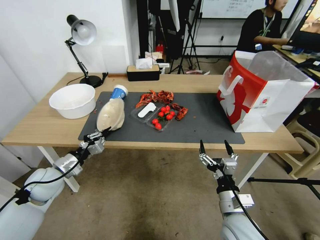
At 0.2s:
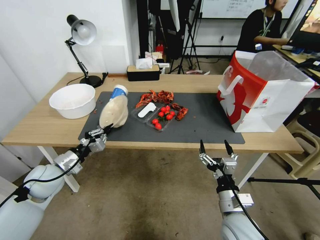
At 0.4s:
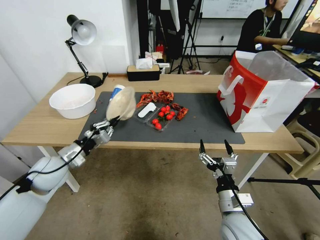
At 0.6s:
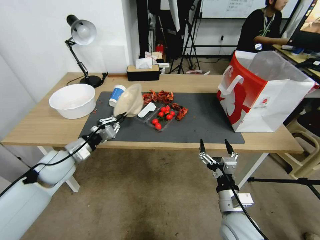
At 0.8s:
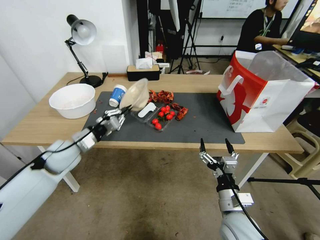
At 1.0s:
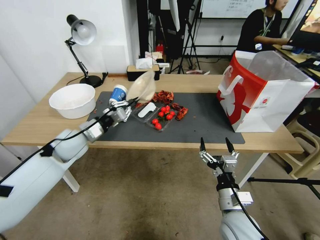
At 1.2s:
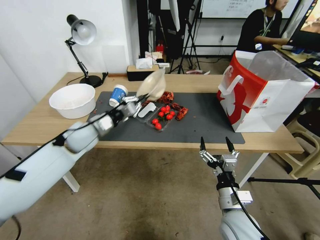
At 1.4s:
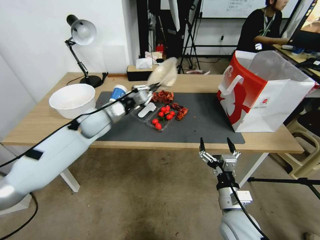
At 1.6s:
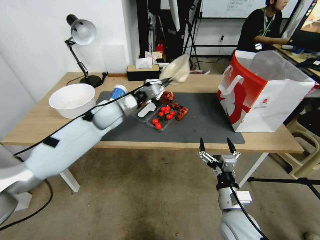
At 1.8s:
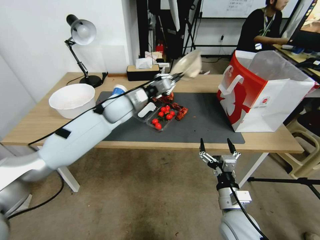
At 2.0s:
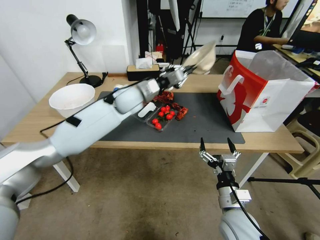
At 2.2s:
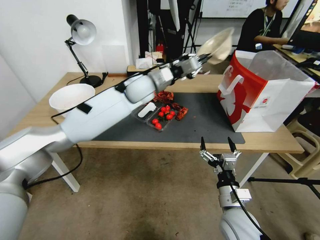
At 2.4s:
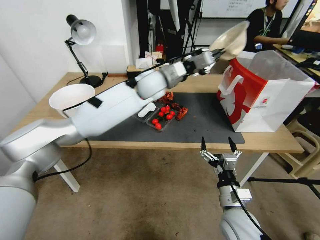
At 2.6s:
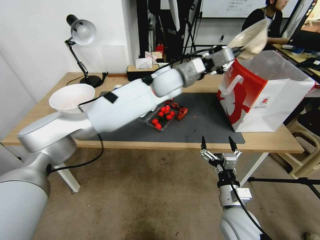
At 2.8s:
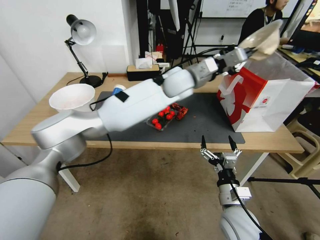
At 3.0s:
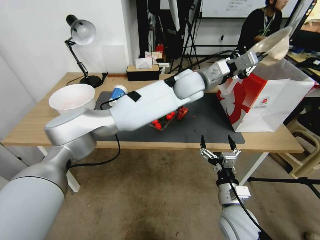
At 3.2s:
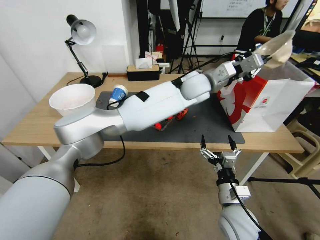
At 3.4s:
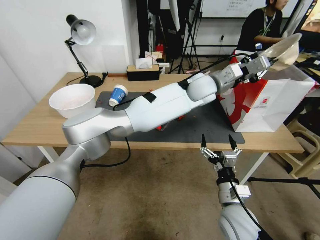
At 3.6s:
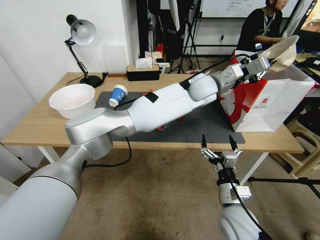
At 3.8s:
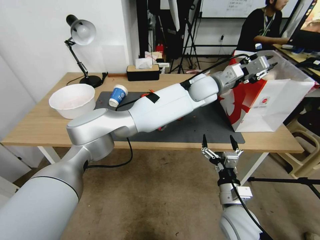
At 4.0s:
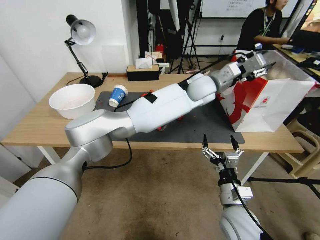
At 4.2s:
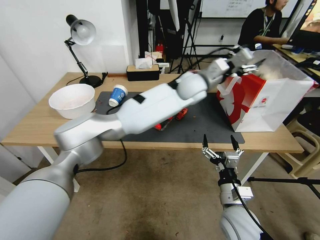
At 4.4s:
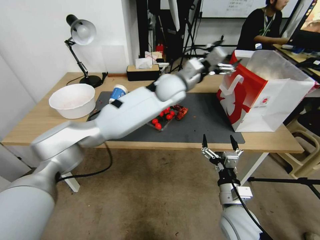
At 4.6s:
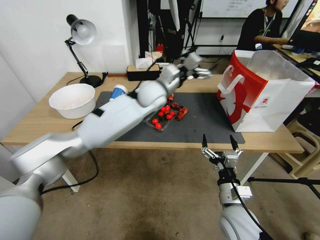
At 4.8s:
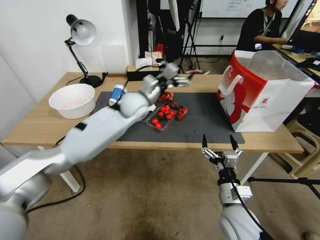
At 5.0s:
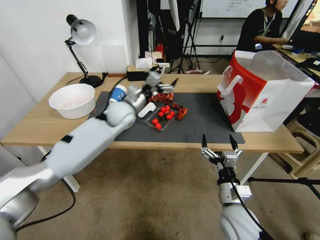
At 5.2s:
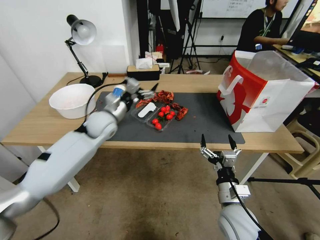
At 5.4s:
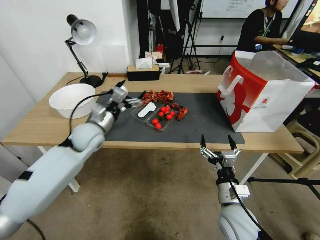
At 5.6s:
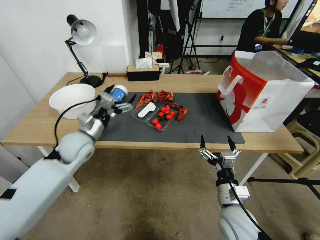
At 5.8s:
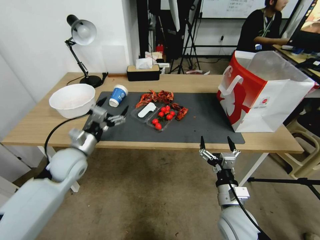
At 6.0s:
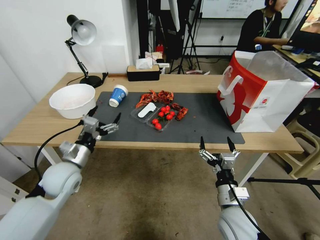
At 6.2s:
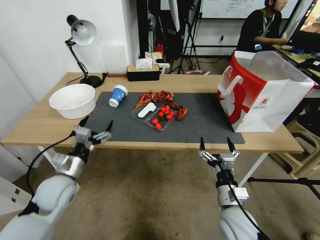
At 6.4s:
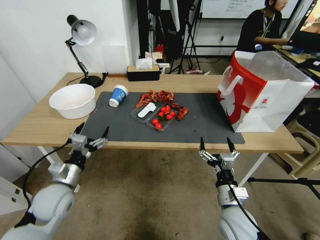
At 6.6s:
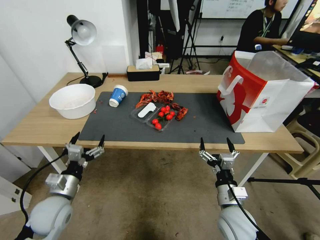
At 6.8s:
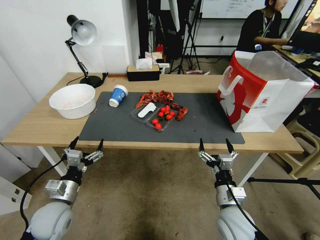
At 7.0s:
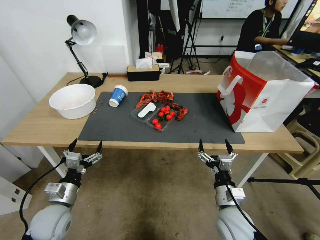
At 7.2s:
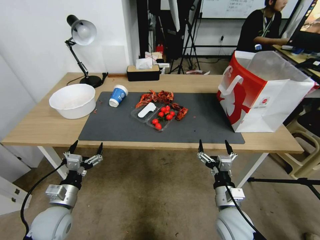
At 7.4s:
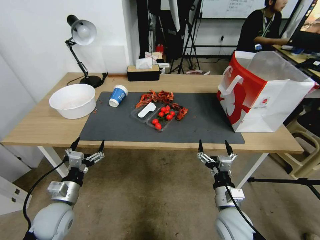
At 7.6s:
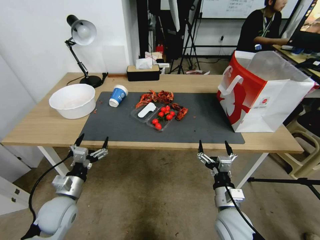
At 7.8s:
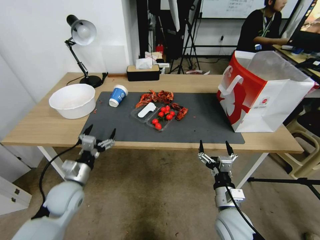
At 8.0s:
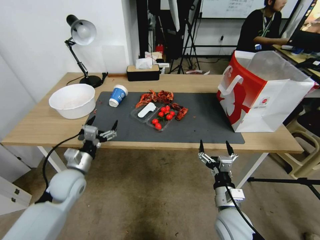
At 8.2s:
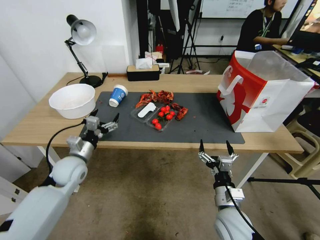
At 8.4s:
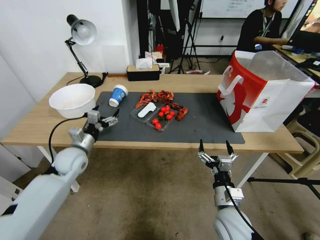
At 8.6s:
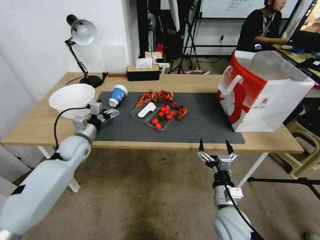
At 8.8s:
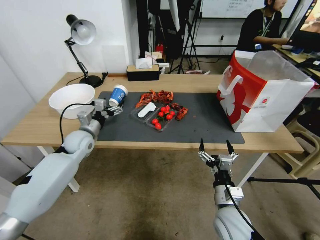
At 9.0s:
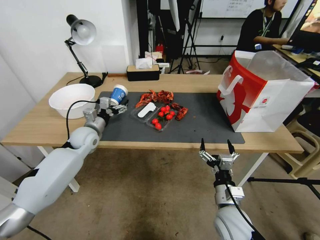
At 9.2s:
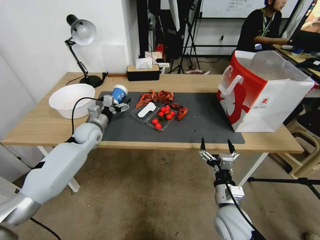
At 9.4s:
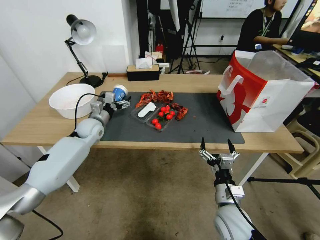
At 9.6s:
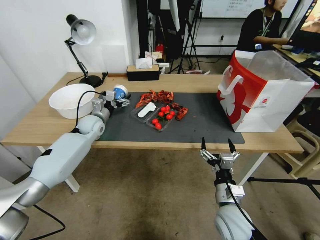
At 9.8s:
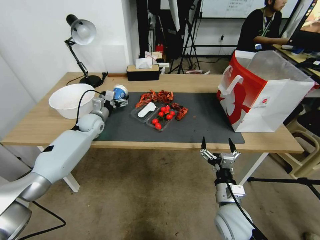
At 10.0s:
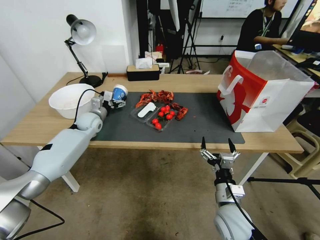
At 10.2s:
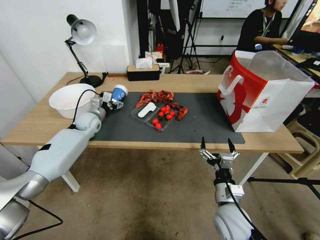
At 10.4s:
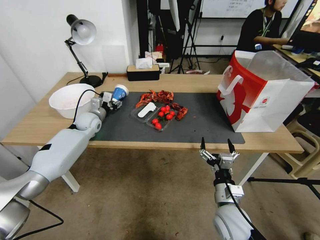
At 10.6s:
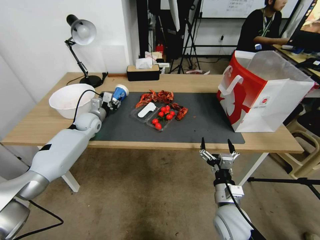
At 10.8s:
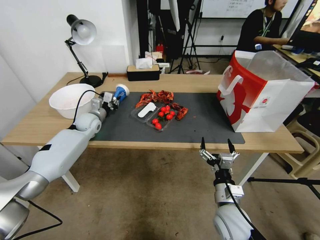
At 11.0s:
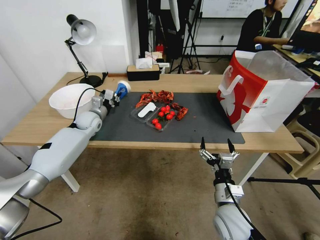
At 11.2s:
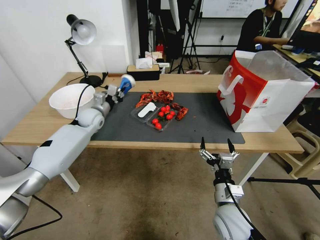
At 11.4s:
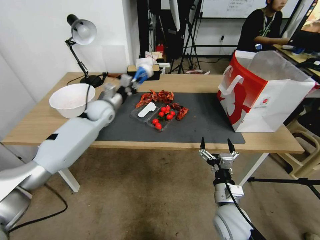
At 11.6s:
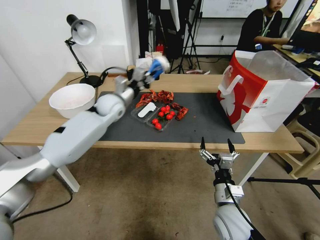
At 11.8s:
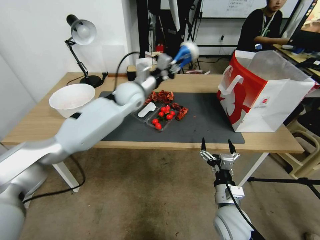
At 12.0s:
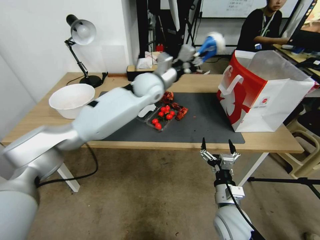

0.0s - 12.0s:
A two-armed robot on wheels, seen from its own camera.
0.0s - 1.6s: The left gripper moves forward, to the right and upward, some 30 cm.
1.6s - 3.0s: The left gripper moves to the right, about 30 cm.
3.0s - 4.4s: The left gripper opens its fingers.
4.4s - 6.0s: The left gripper travels to the left, backward and downward by roughly 50 cm.
6.0s - 7.6s: The left gripper shifts some 10 cm backward and downward.
7.6s - 9.0s: The left gripper goes approximately 20 cm forward.
9.0s - 10.4s: The left gripper heads forward, covering about 10 cm, and closes up.
10.4s - 12.0s: The left gripper heads to the right and upward, covering about 35 cm, and closes its fingers.

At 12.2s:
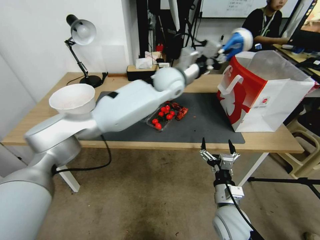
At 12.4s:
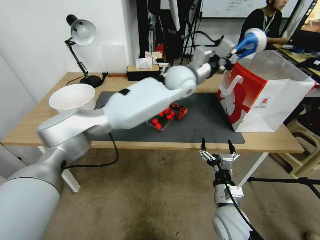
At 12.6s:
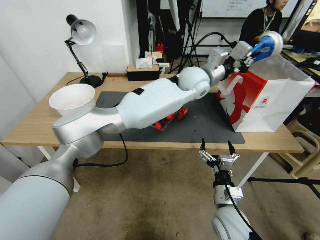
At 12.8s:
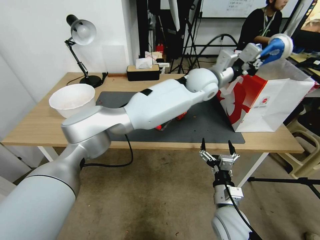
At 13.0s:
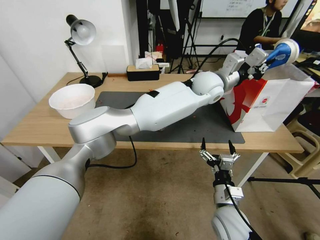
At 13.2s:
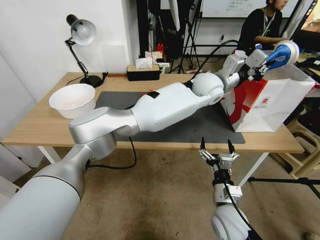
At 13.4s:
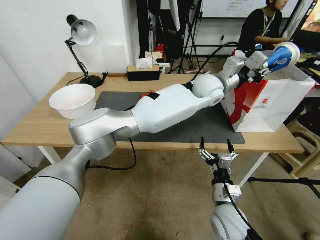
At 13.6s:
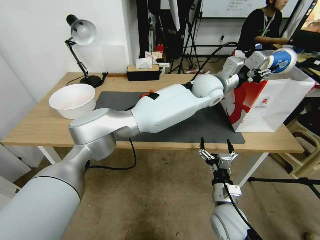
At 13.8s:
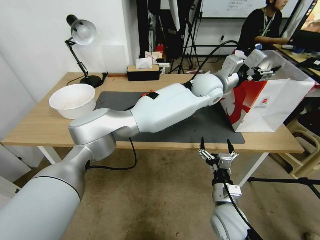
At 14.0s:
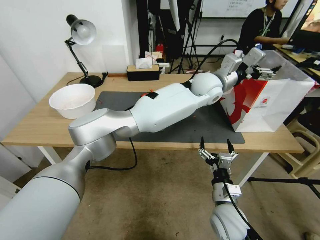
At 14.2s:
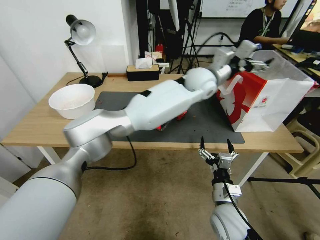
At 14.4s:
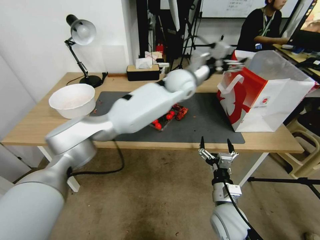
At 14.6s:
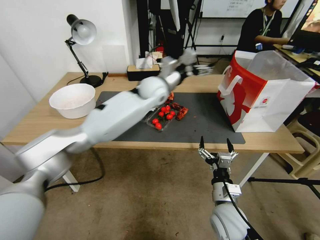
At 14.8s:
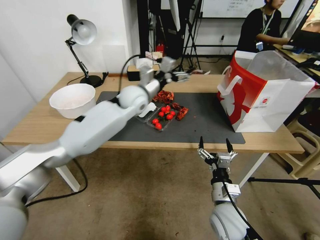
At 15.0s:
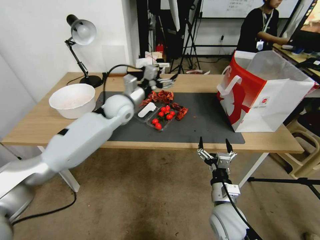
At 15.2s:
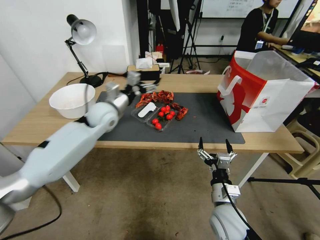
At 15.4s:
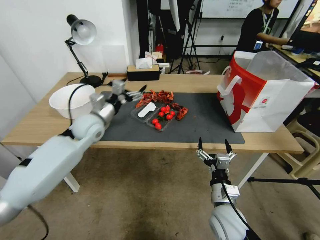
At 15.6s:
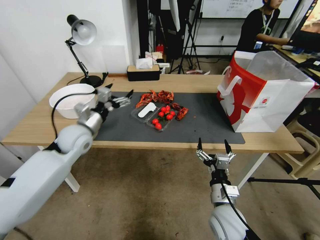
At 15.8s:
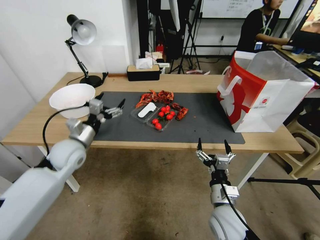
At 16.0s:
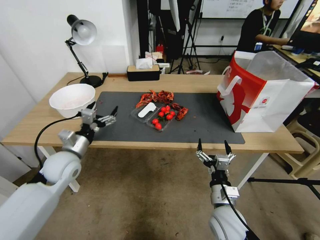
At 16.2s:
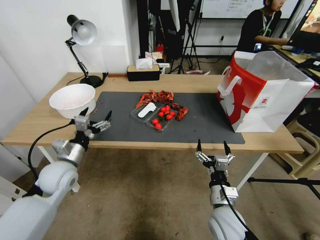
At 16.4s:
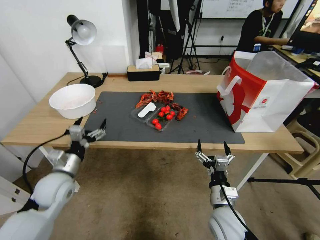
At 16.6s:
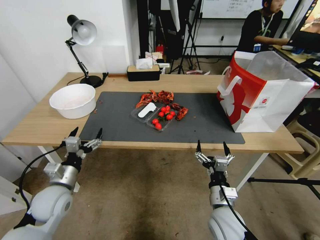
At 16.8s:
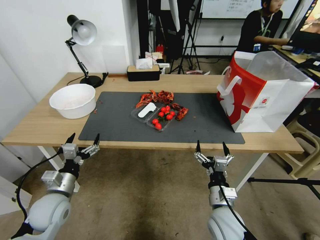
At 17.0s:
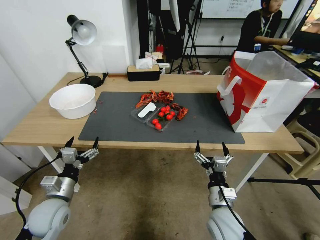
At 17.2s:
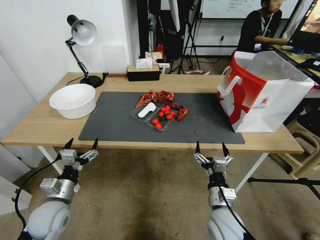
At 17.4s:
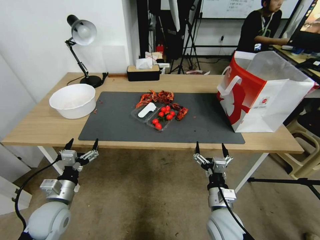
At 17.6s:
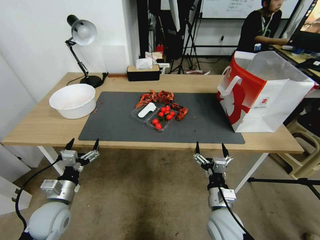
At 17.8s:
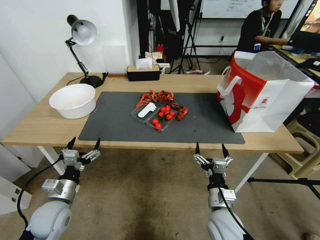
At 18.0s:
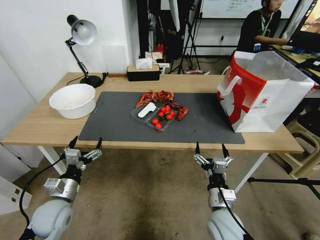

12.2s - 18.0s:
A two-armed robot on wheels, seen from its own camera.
12.2s - 13.6s: The left gripper shifts about 15 cm to the right, and opens its fingers.
13.6s - 15.0s: The left gripper shifts some 30 cm to the left, and opens up.
15.0s - 16.6s: The left gripper goes some 35 cm backward, to the left and downward.
16.6s - 18.0s: There are only small adjustments of the grippers.

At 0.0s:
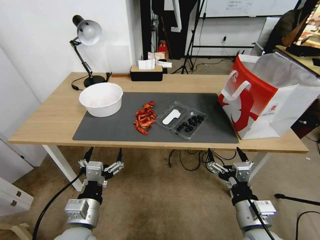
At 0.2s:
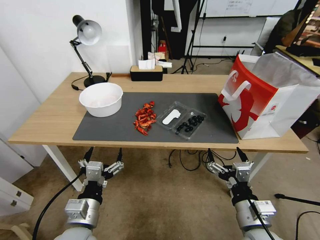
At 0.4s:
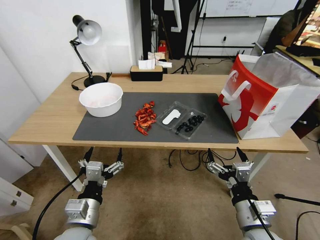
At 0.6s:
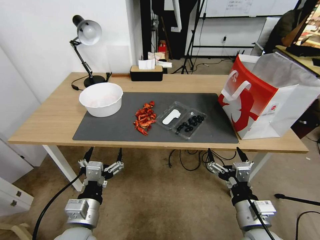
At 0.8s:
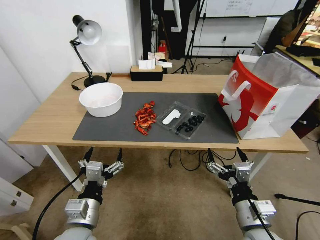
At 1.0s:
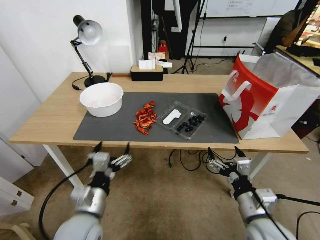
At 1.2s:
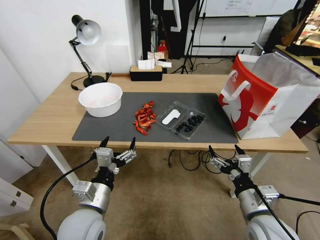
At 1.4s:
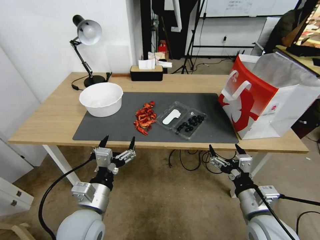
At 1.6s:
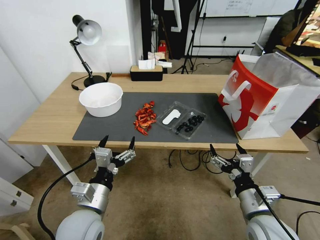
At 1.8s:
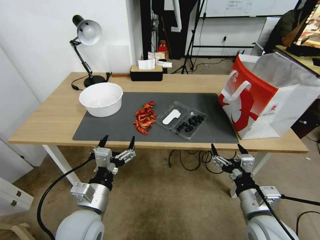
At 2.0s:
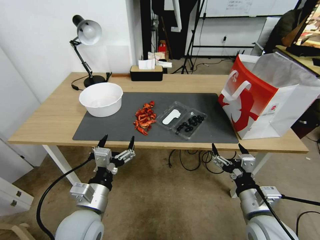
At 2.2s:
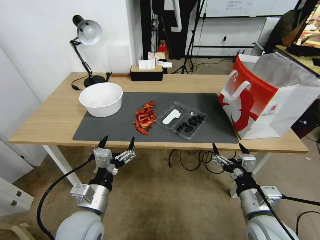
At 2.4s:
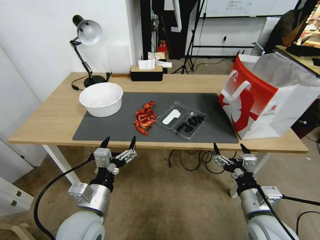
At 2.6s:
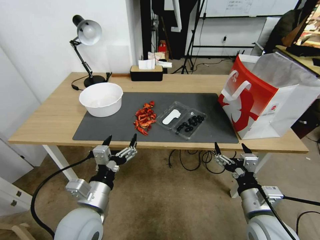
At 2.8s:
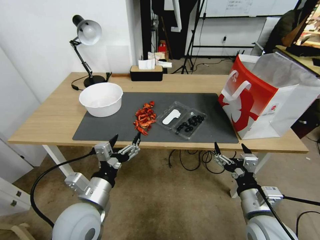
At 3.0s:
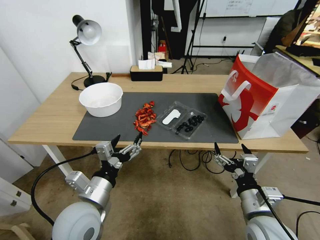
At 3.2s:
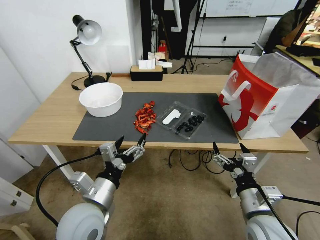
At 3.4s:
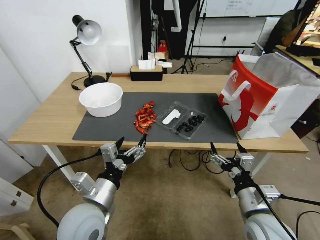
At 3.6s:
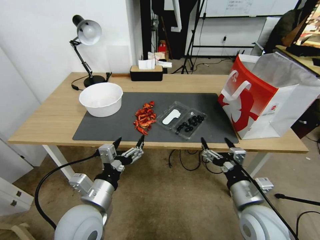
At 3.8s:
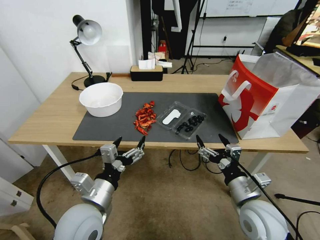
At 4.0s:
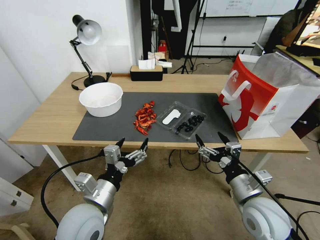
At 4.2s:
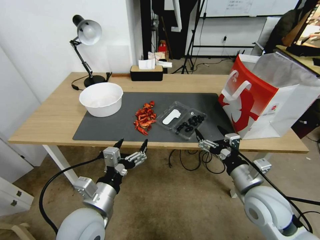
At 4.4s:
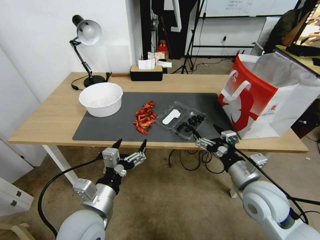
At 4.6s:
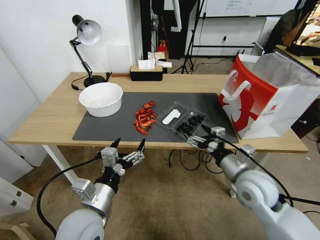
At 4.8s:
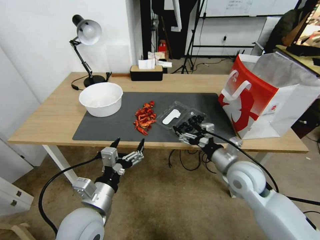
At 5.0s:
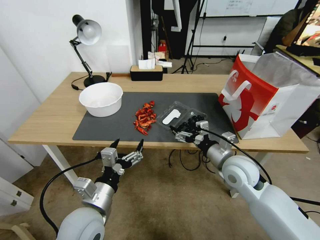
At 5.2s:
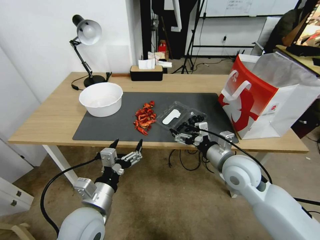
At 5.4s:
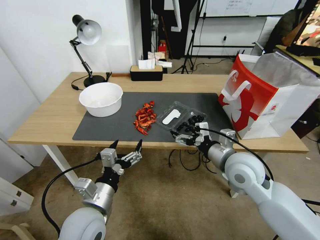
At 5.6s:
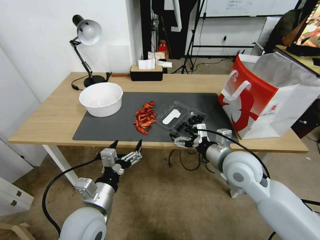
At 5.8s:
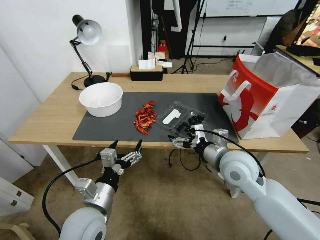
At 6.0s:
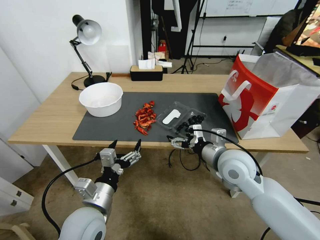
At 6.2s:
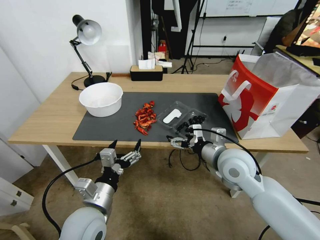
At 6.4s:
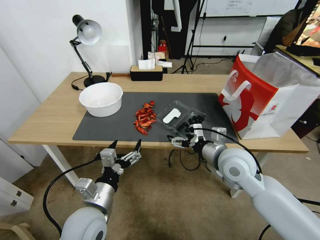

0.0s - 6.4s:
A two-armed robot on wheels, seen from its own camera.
3.2s - 4.8s: The right gripper moves forward, about 15 cm.
4.8s - 6.4s: The right gripper moves upward, approximately 5 cm.
